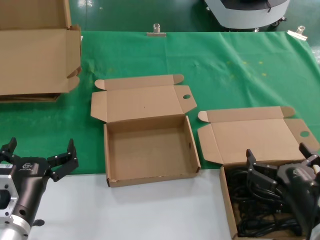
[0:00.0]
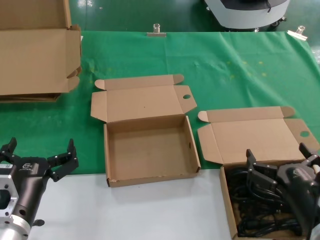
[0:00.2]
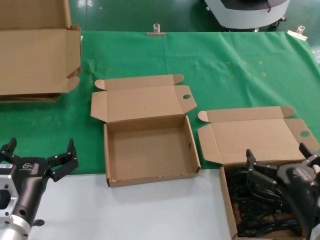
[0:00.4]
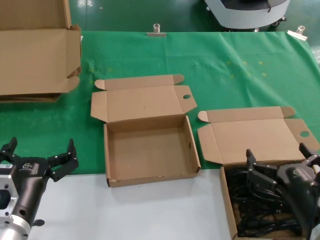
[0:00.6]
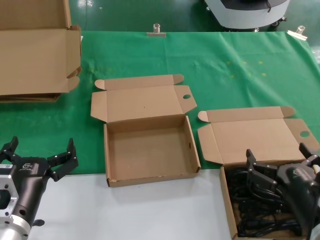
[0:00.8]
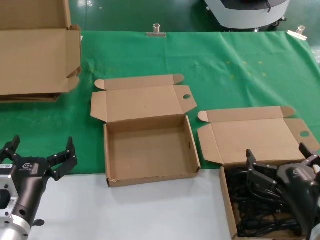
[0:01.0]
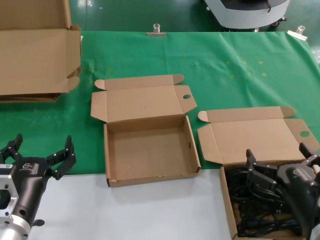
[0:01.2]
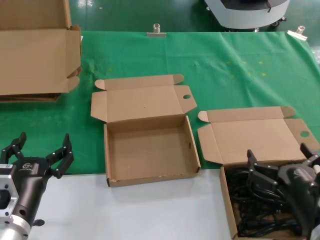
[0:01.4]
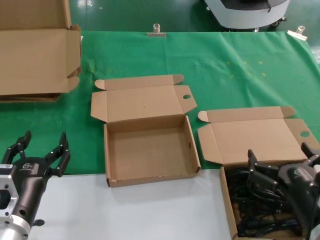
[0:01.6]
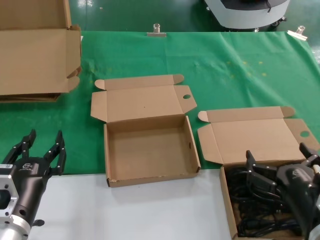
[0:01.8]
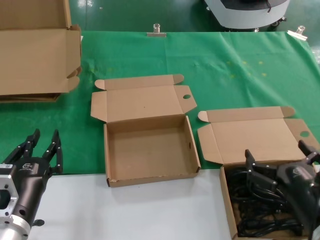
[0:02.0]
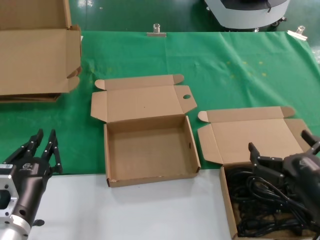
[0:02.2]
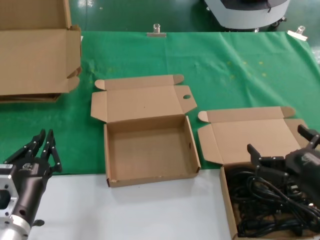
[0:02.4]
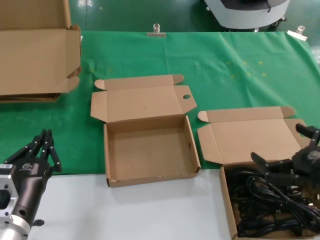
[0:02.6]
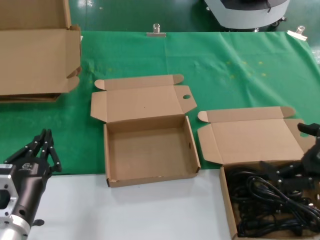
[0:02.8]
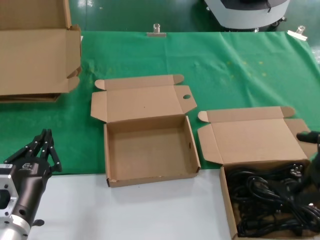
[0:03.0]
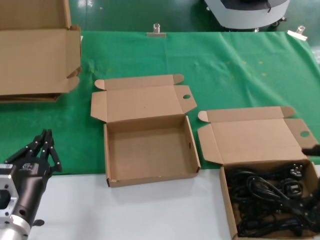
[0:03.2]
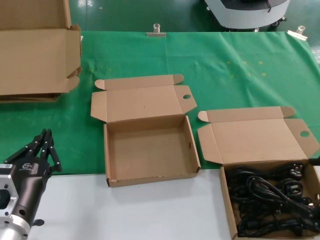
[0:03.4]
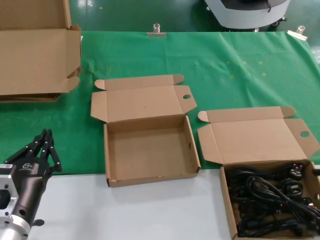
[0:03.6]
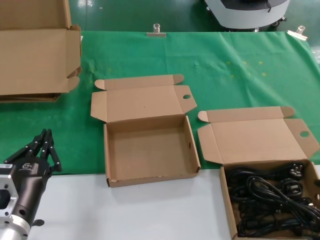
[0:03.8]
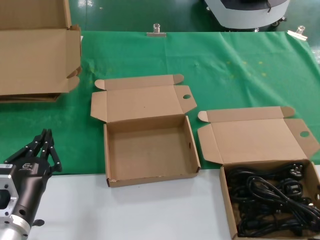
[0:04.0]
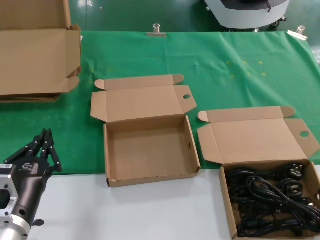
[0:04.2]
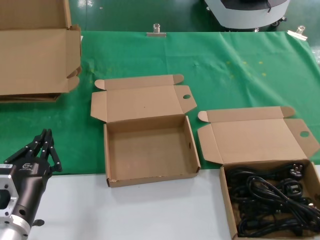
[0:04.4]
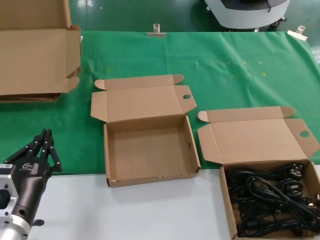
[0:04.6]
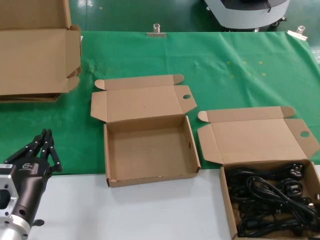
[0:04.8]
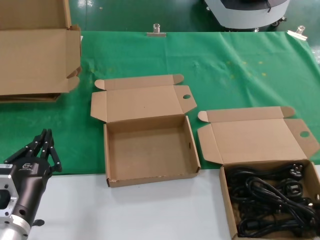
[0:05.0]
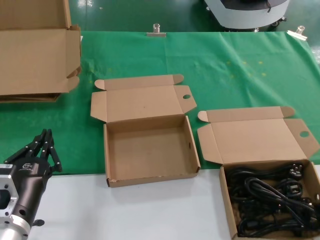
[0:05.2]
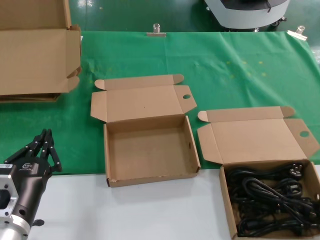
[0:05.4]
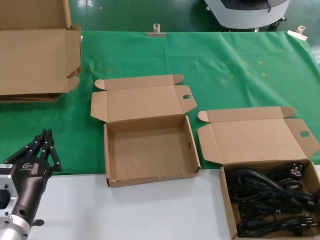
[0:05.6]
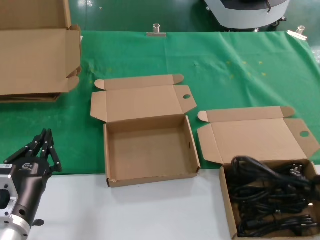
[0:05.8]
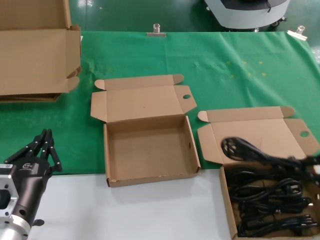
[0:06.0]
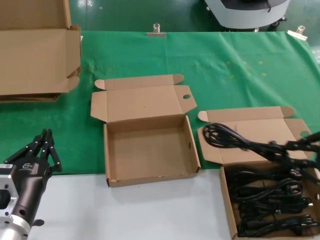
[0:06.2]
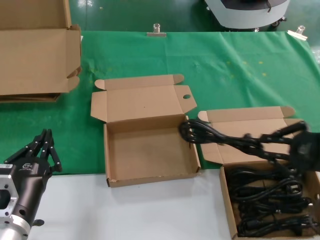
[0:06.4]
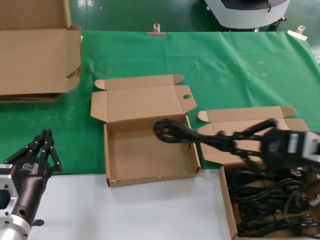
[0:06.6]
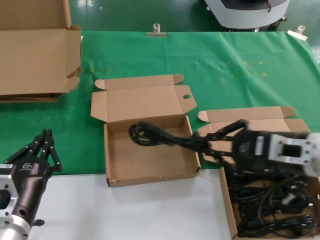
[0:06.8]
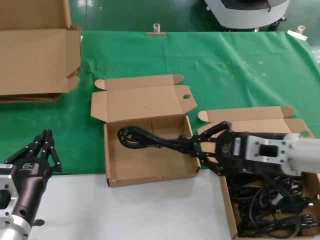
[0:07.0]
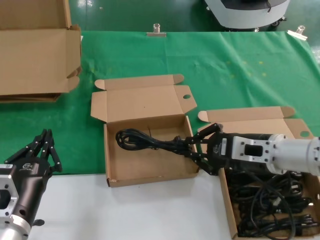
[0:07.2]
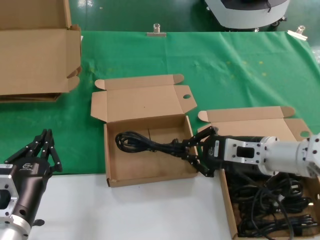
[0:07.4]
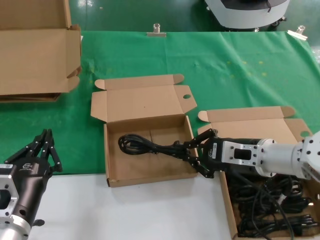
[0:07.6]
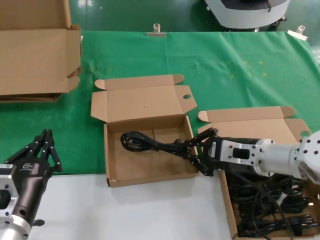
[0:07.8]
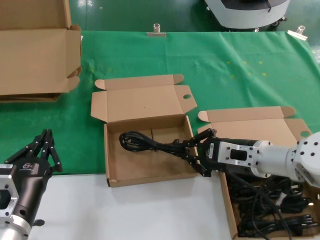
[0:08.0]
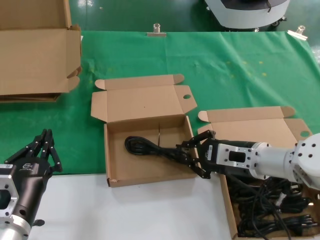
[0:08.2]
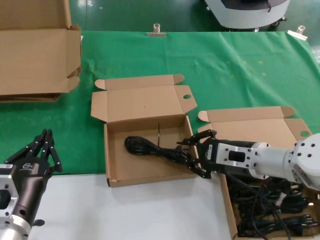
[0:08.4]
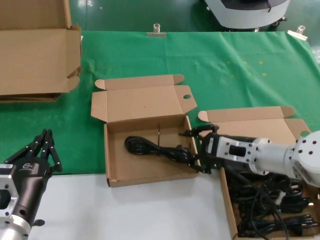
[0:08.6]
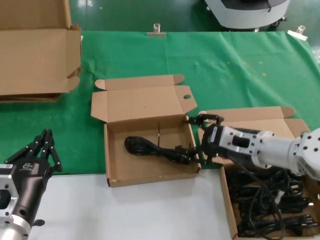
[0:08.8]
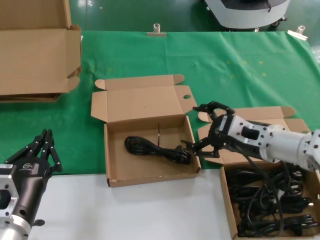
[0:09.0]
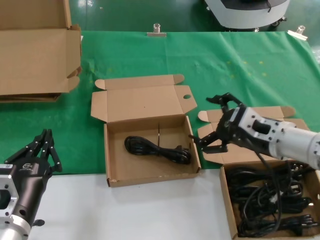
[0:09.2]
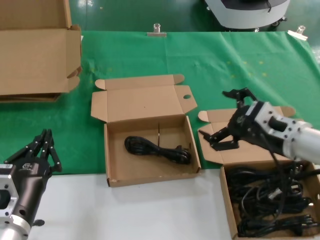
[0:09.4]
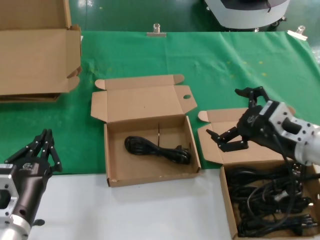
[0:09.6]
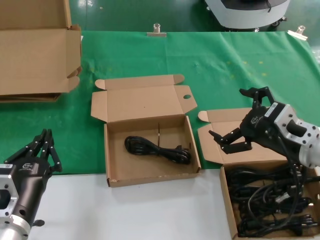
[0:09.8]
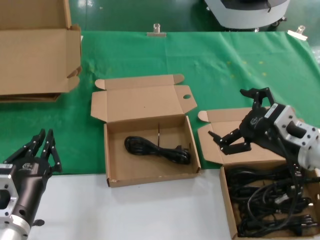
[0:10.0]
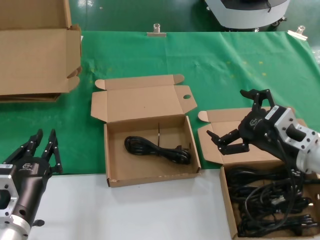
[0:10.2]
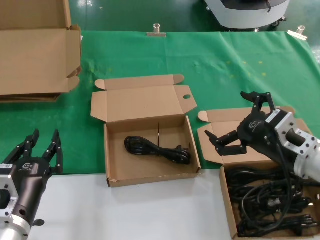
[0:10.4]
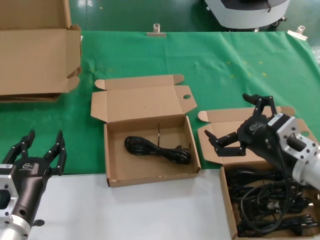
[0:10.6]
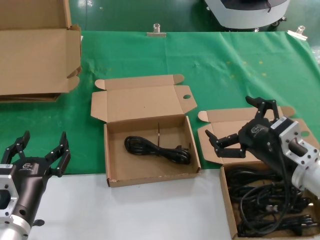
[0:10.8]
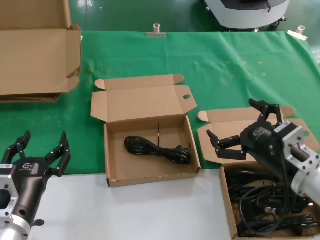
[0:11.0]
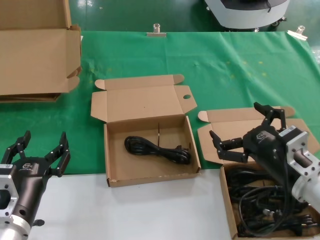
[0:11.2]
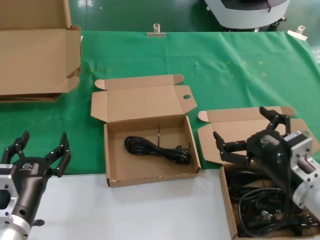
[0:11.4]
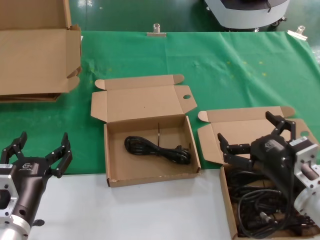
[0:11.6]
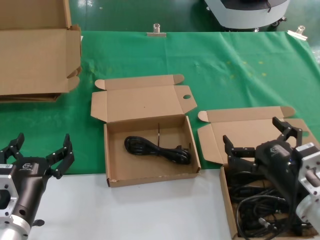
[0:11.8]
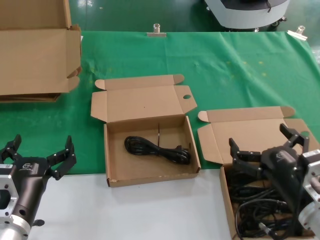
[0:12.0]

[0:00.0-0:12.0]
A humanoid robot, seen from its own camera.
Task of the whole recording: take the parts from the box containing them and put them into an empty box.
Step, 0:00.0 to 0:05.0: Grasp the data cable.
Step, 0:05.4 to 0:08.4: Place the data cable in the another box.
0:00.0 to 0:01.6: Both hands stay about where they are.
0:01.6 to 0:03.0: The right hand moves upward and to the right, roughly 20 cm.
0:03.0 to 0:04.4: The right hand goes approximately 5 cm to the right.
0:04.4 to 0:06.0: The right hand ends up approximately 5 cm from where it was.
0:06.0 to 0:07.6: The right hand goes approximately 25 cm to the left and forward.
0:07.6 to 0:09.0: The hands make only small movements.
0:09.0 to 0:10.4: The right hand shifts about 5 cm backward.
0:10.4 to 0:12.0: The right hand travels downward and backward by roughly 10 cm.

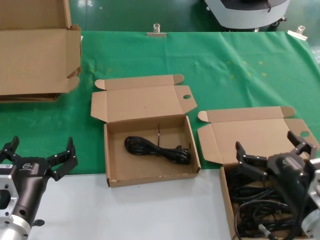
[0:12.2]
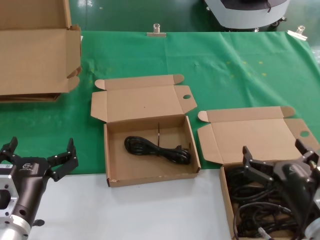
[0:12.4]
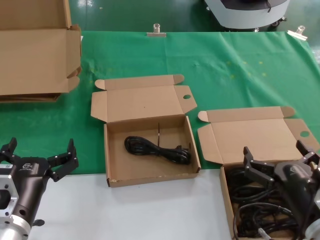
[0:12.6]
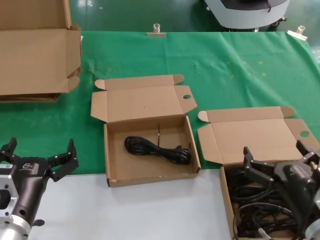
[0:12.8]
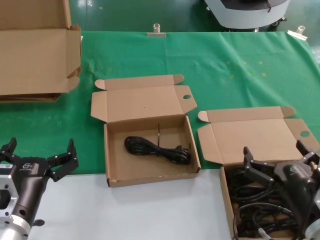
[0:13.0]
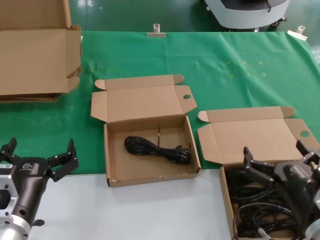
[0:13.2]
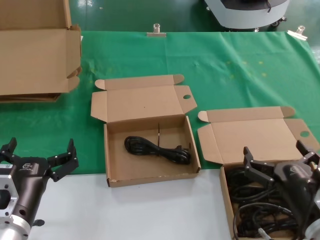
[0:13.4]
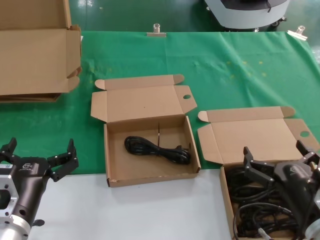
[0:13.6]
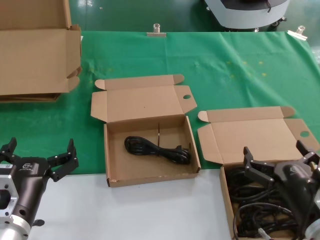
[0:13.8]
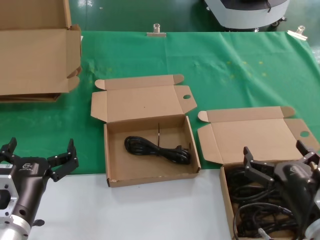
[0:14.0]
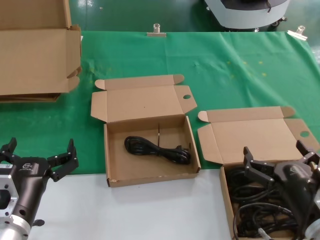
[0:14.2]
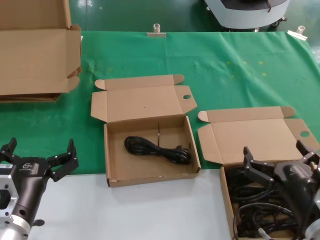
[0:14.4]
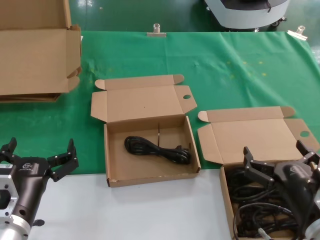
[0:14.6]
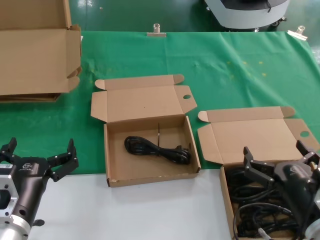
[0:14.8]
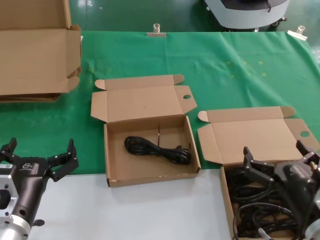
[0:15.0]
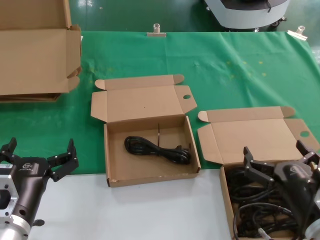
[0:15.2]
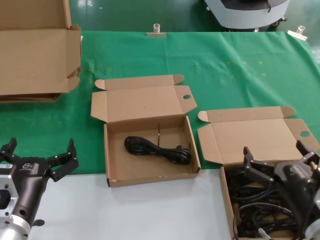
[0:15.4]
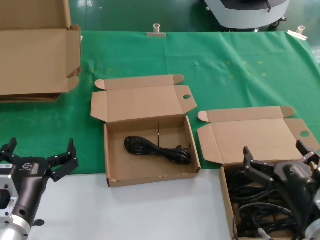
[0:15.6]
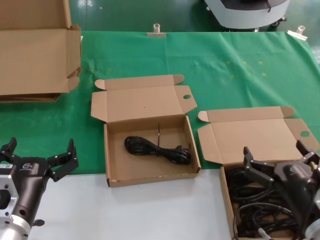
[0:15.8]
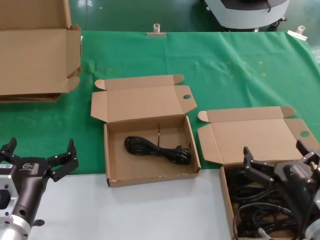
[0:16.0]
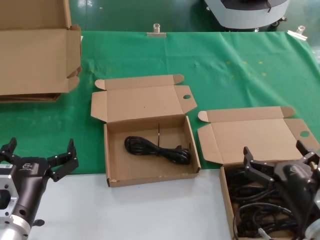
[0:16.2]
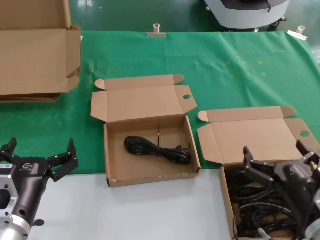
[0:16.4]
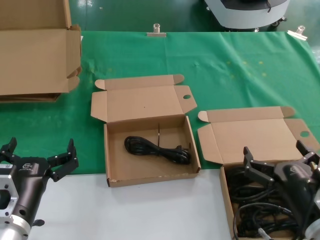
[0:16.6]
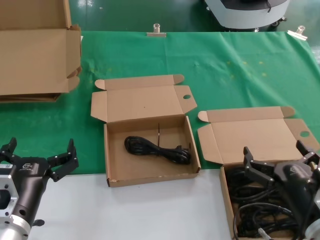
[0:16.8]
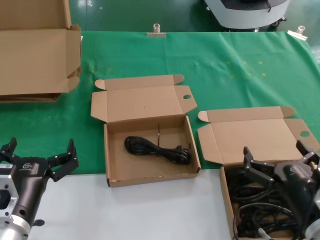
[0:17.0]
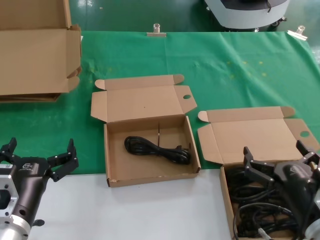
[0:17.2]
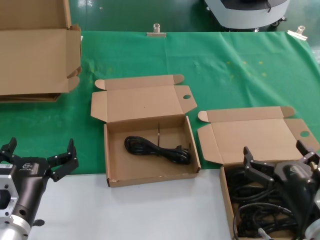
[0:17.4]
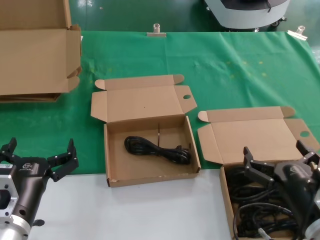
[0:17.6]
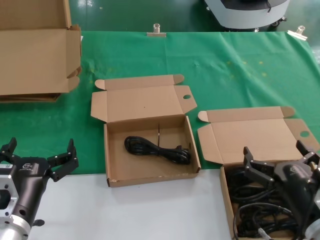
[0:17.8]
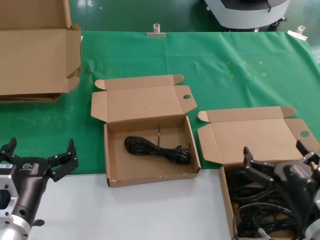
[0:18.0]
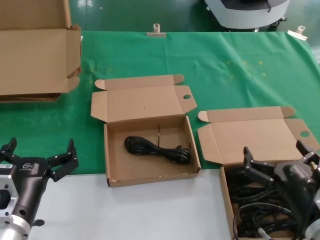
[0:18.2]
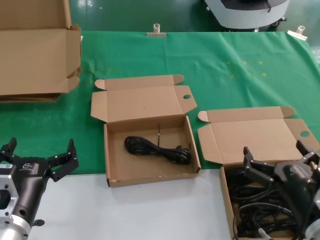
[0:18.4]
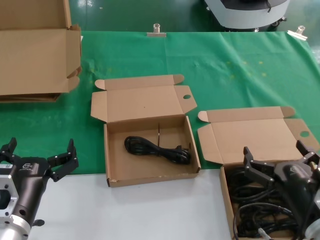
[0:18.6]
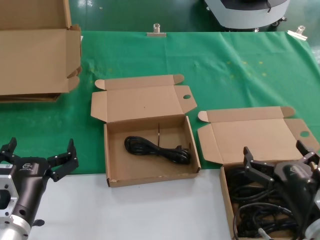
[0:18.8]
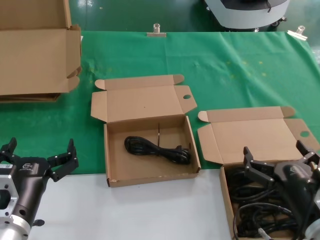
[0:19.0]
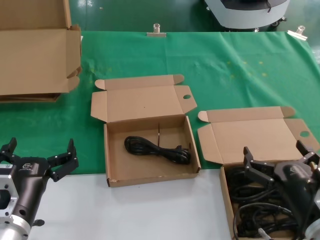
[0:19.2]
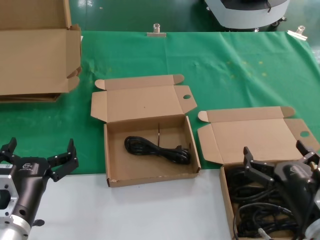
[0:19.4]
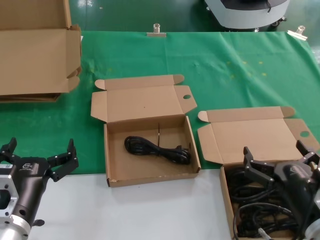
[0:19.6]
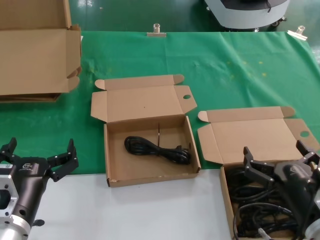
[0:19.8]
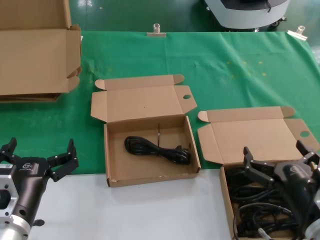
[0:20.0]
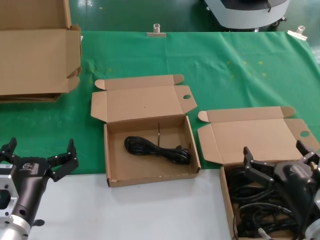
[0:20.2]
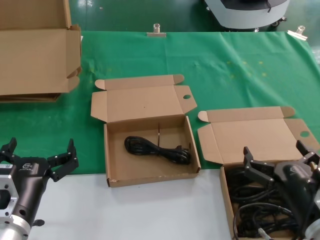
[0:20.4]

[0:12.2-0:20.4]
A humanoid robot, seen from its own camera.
Task of the whole recording: take the parts from the box containing them and put them into an empty box.
0:12.2 to 0:13.8: The hands stay close to where they were, moving slightly.
0:13.8 to 0:20.4: Both hands stay about where they are.
